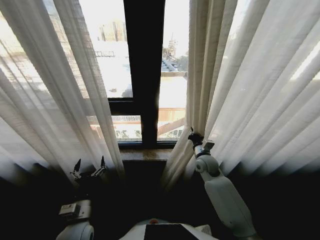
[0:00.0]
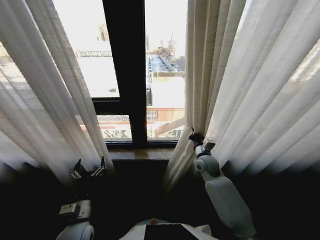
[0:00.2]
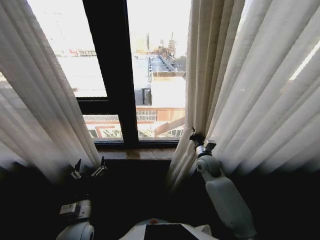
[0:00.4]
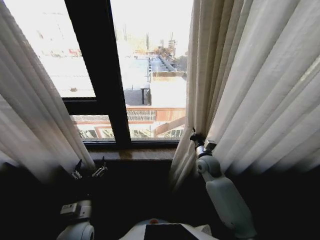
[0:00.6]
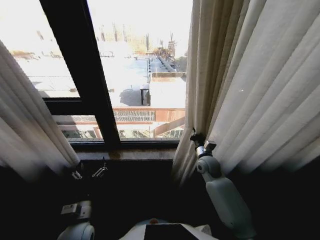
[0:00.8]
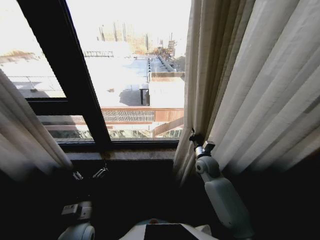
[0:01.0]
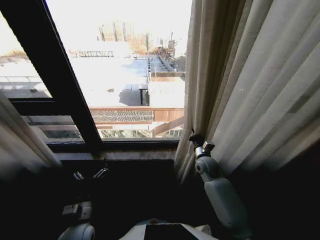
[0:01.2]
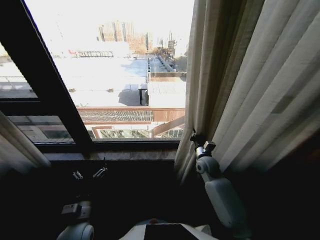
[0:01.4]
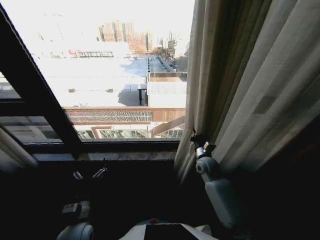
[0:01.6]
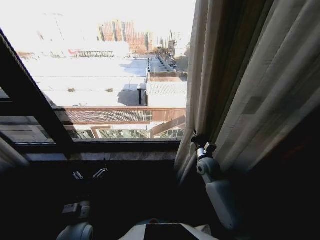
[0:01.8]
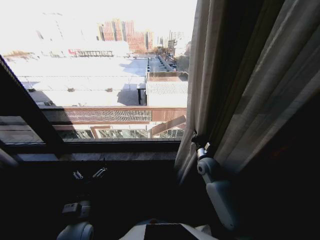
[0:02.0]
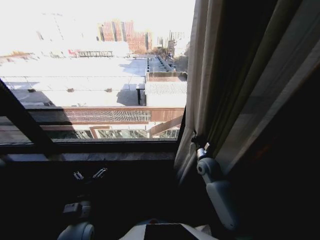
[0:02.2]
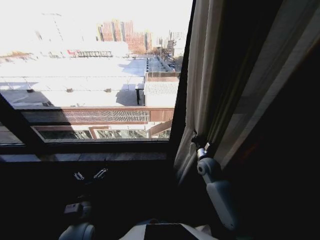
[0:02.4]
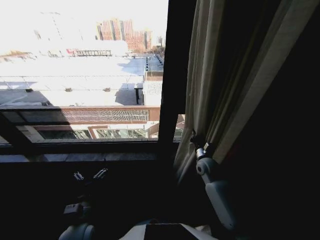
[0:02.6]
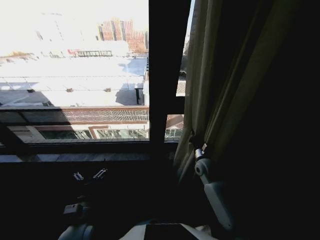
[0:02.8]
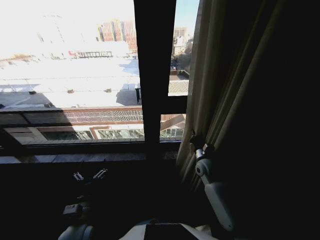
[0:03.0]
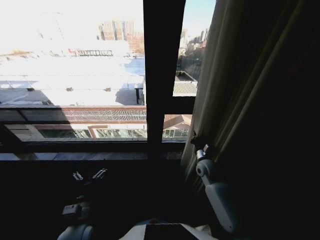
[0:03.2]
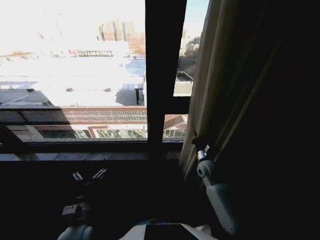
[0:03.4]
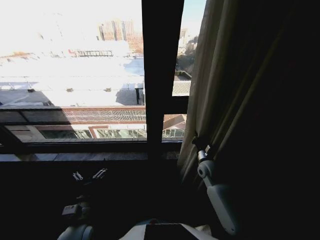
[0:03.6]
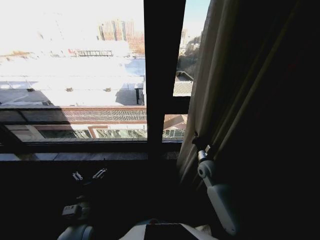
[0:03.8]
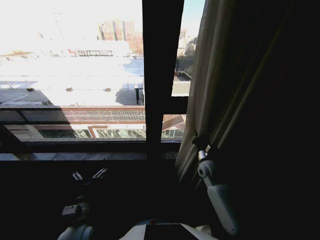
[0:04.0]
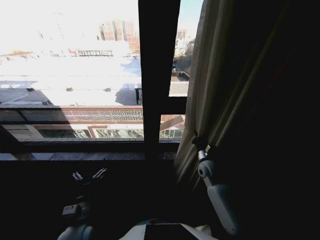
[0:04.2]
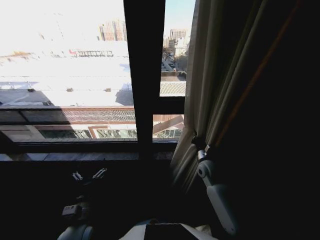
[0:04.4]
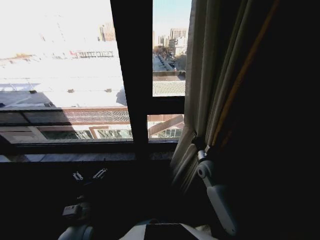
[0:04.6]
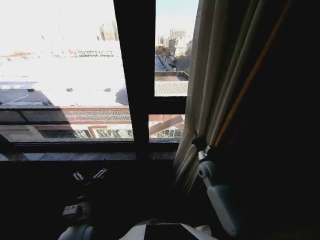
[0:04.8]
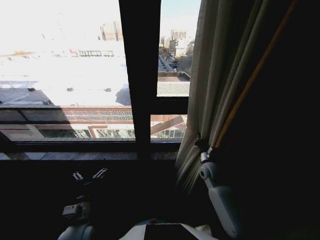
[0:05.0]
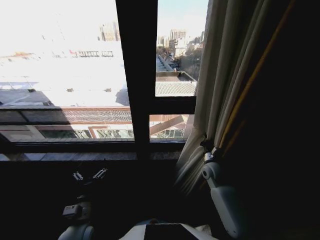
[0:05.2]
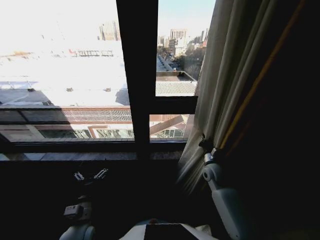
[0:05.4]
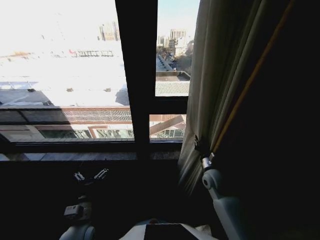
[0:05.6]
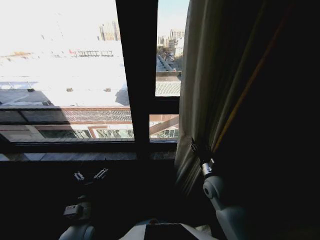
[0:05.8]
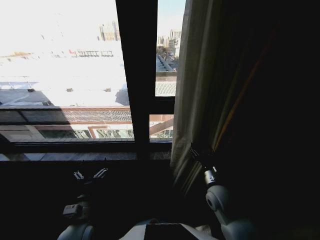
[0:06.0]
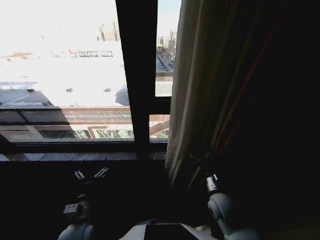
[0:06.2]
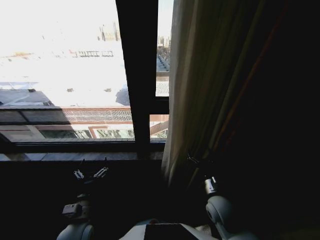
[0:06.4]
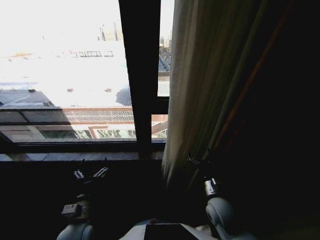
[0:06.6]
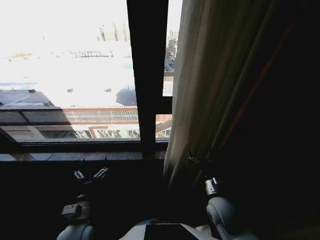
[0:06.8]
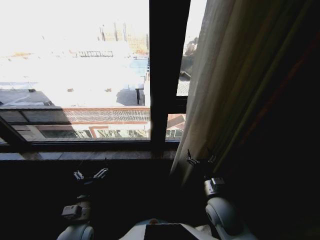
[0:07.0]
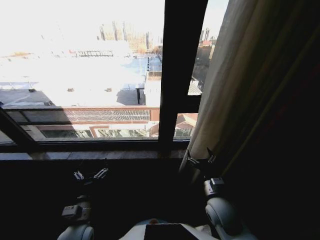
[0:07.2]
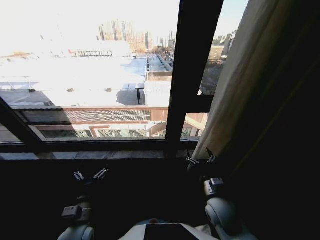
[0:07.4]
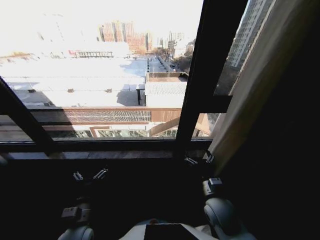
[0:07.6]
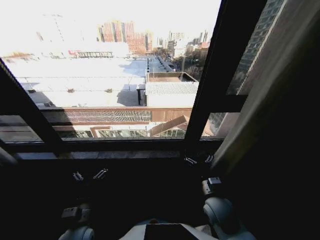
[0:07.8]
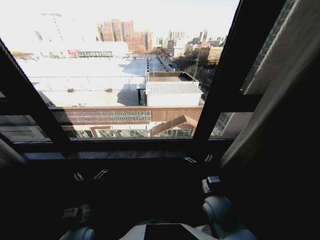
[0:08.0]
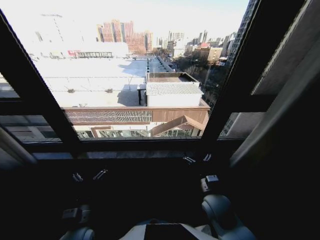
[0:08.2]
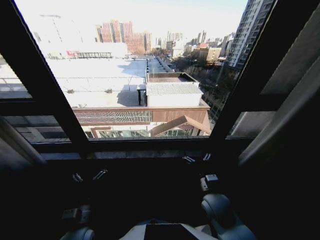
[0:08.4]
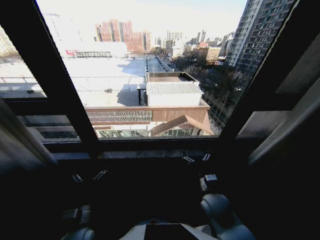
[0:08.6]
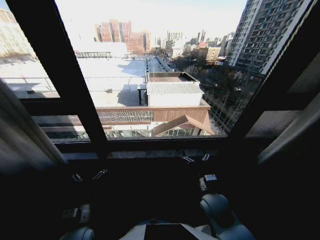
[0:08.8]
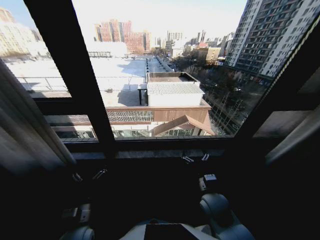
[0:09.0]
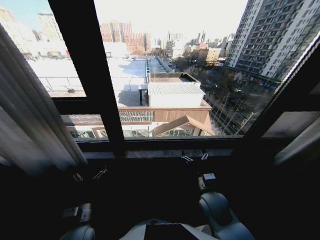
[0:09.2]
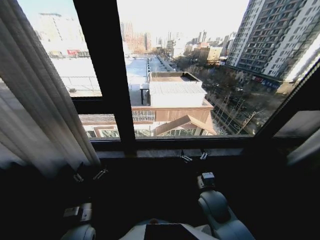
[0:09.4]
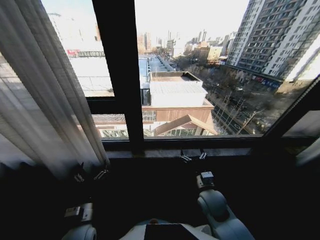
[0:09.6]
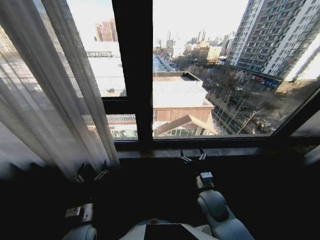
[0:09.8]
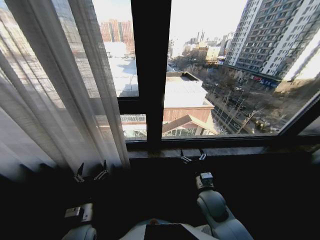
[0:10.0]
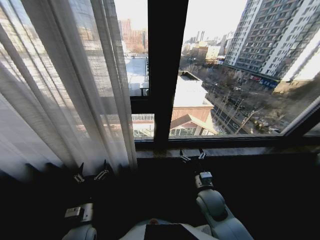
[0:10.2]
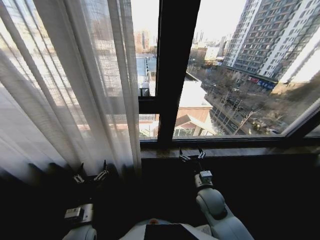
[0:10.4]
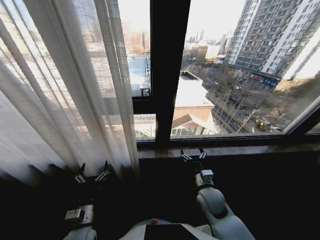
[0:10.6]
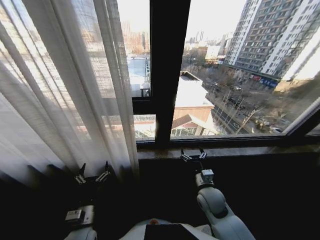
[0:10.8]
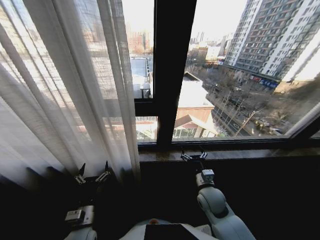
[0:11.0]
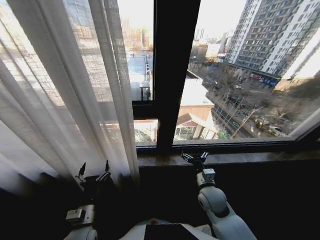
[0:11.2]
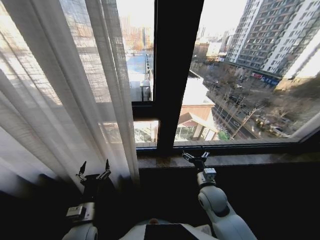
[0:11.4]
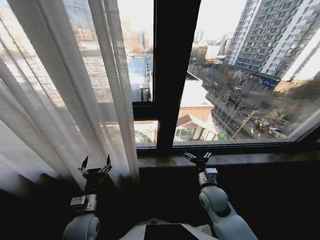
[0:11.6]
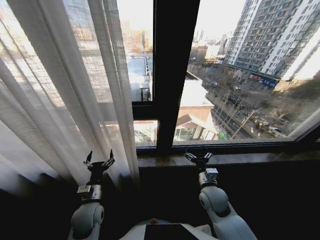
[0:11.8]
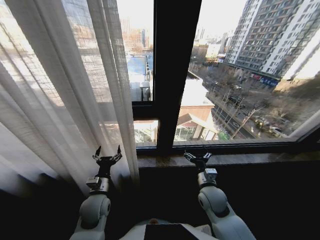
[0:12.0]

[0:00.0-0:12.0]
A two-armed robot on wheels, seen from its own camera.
Task of the whole recording: Open the curtains by pulling them apart, changing their state from closed to fully open.
0:03.0 to 0:04.4: Both grippers stay about where they are.
0:04.4 to 0:06.0: The right gripper goes about 10 cm backward, and opens.
0:10.4 to 0:12.0: The left gripper heads forward, covering about 10 cm.

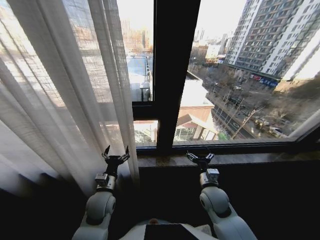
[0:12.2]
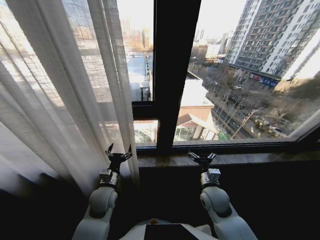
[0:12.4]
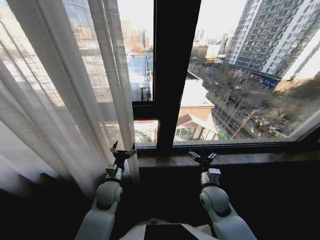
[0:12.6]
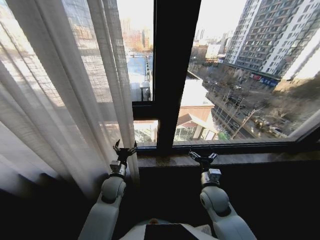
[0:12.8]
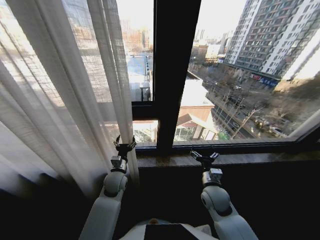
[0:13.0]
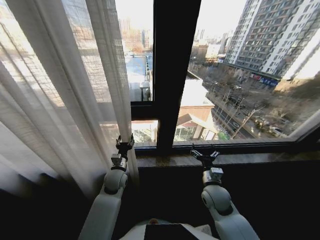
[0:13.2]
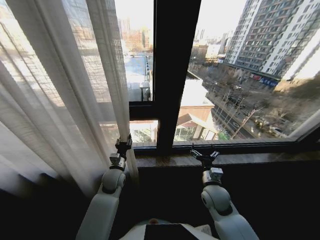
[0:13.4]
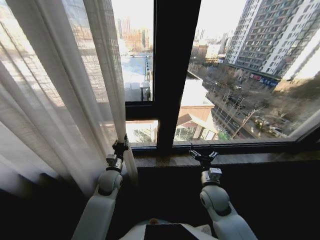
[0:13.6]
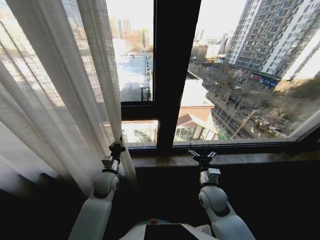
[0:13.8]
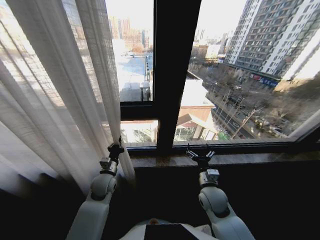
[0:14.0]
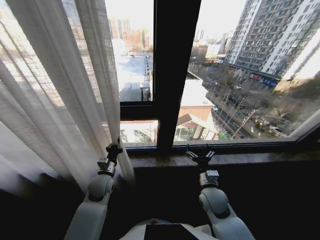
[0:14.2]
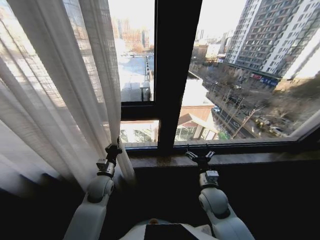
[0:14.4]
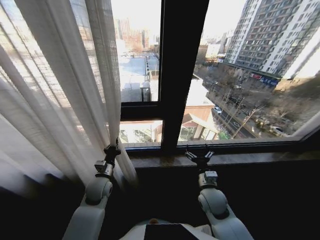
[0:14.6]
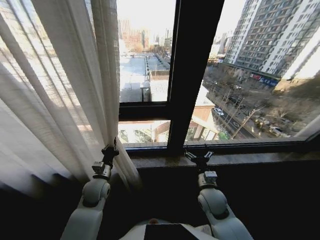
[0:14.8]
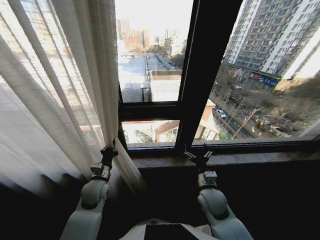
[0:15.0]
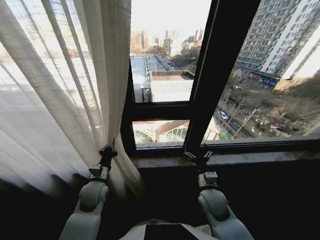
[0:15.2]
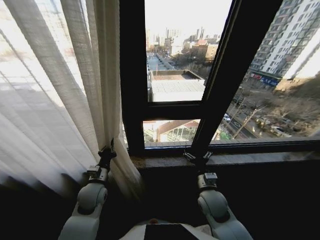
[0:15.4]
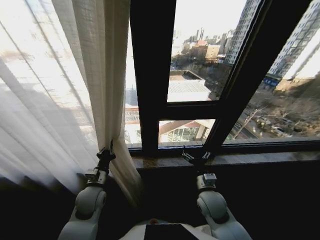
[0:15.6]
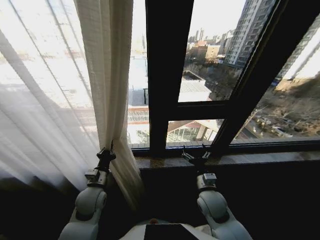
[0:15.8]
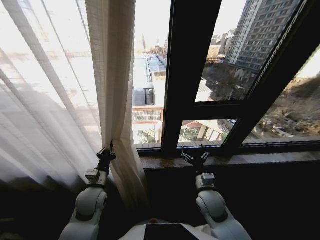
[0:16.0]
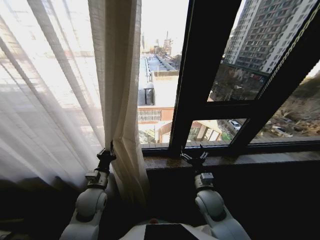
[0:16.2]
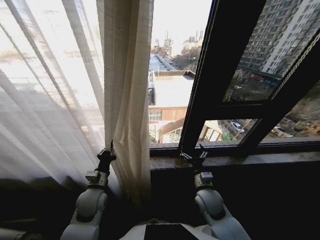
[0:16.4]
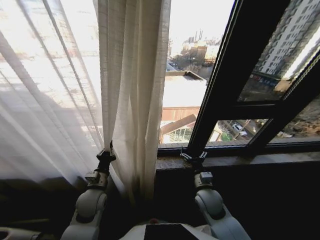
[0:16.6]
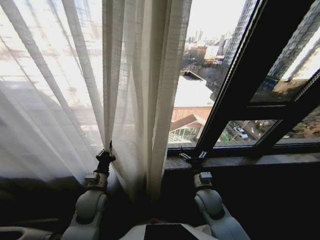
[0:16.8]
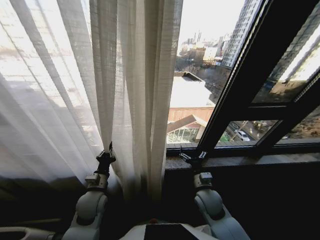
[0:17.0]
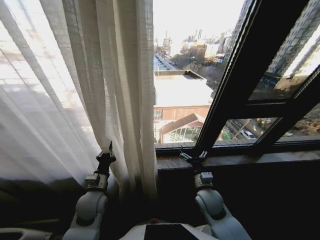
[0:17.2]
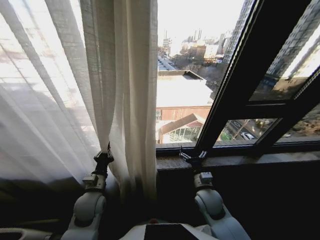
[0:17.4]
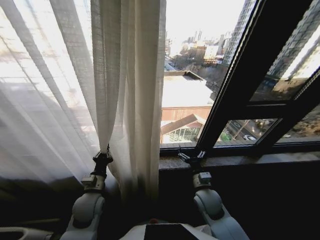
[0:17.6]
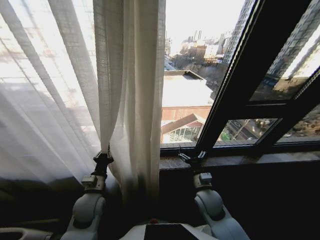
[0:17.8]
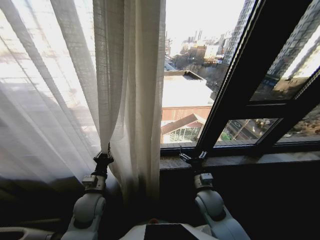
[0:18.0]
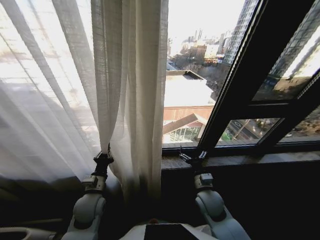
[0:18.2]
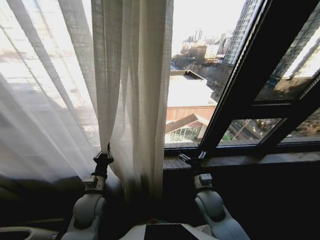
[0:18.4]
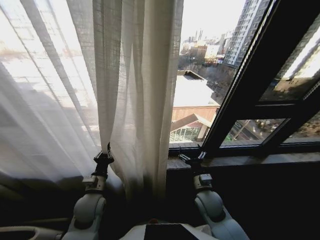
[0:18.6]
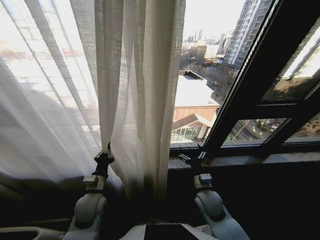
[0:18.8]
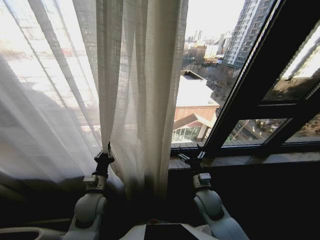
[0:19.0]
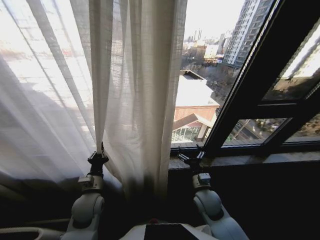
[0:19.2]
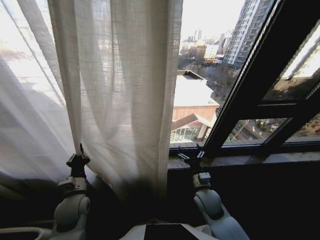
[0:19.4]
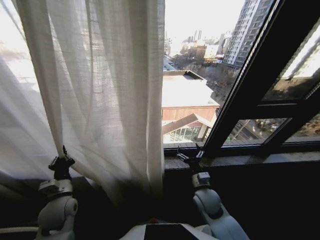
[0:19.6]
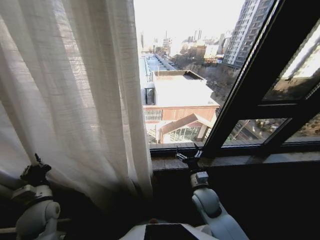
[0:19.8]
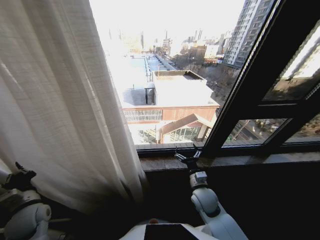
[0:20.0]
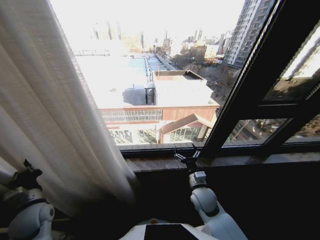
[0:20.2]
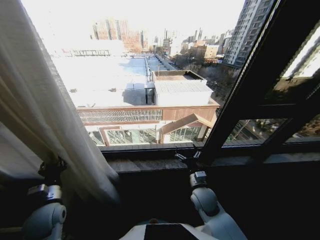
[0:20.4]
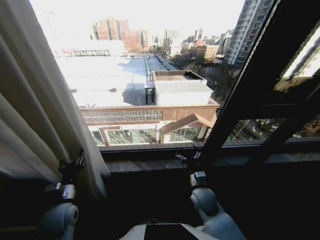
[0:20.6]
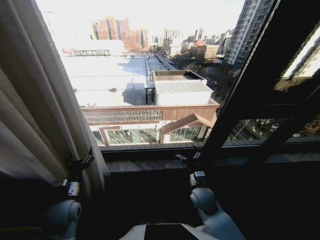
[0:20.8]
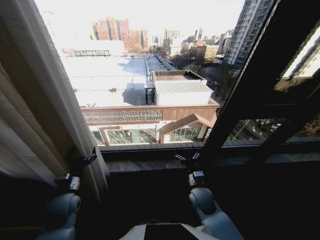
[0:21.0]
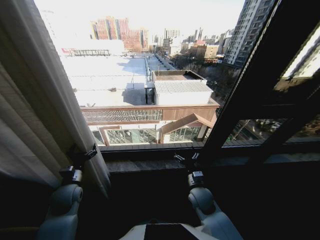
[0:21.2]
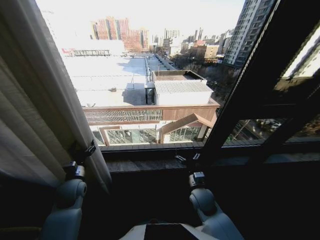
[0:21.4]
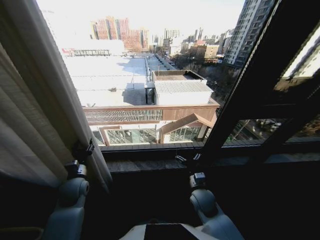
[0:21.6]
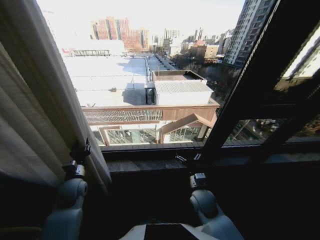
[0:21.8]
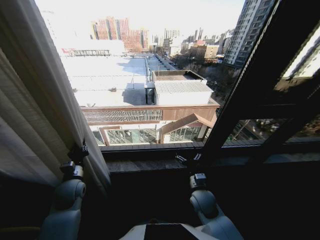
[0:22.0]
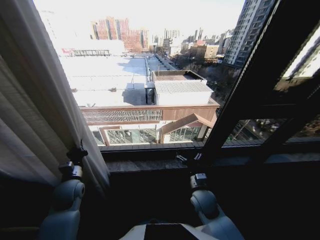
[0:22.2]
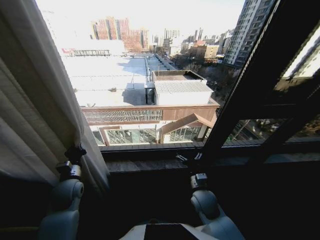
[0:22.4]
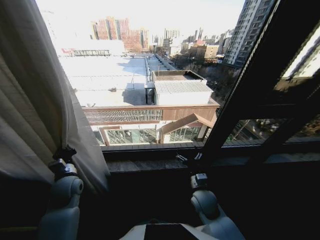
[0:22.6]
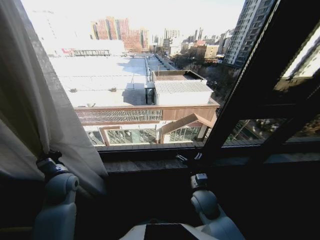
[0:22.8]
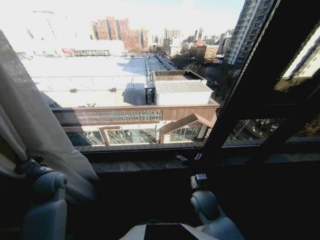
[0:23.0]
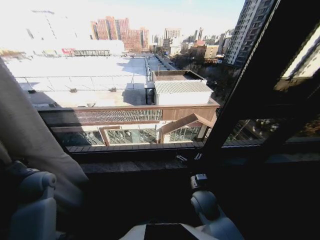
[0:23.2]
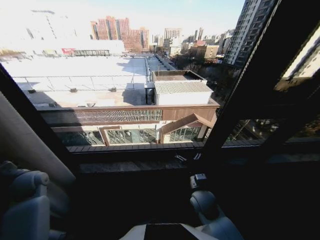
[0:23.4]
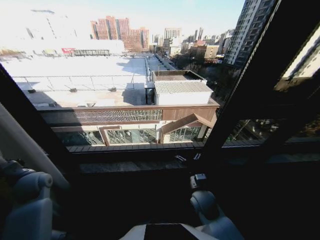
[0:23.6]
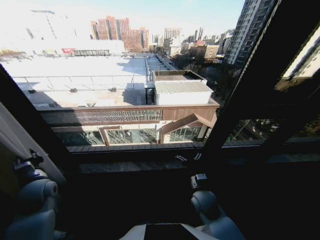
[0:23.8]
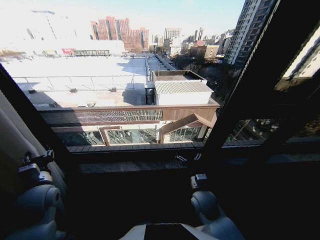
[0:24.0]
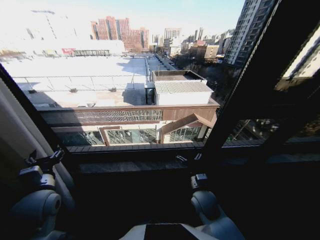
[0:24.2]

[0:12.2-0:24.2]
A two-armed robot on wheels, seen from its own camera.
Task of the whole recording: Open the curtains by pulling them apart, changing their state from closed to fully open.
0:12.2 to 0:13.8: The left gripper travels forward by roughly 10 cm, and closes up.
0:13.8 to 0:15.2: The left gripper changes place by approximately 5 cm.
0:18.2 to 0:19.8: The left gripper travels to the left by about 15 cm.
0:19.8 to 0:21.2: The left gripper goes approximately 5 cm forward, and opens up.
0:21.2 to 0:22.6: The left gripper closes.
0:22.6 to 0:24.2: The left gripper heads upward and backward, covering about 10 cm, moves approximately 15 cm to the left and comes back, and opens its fingers.
